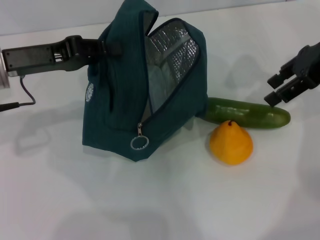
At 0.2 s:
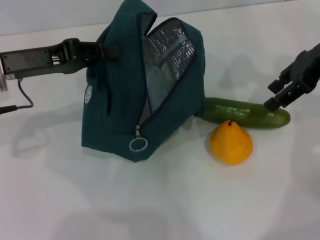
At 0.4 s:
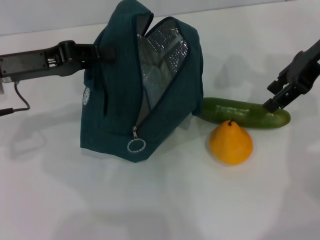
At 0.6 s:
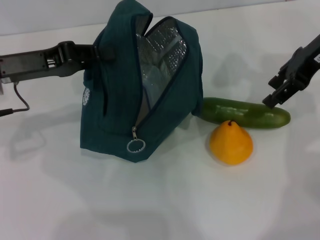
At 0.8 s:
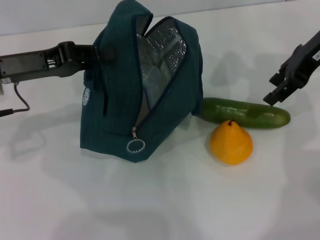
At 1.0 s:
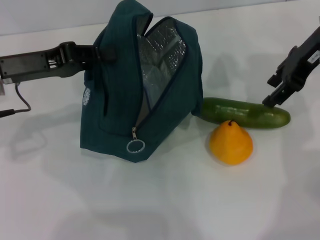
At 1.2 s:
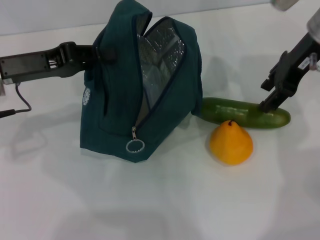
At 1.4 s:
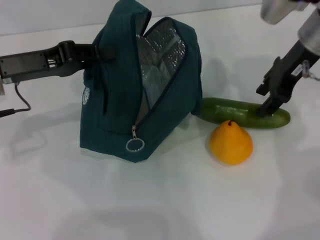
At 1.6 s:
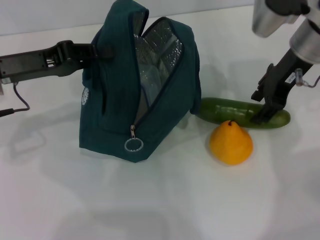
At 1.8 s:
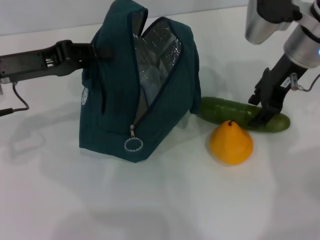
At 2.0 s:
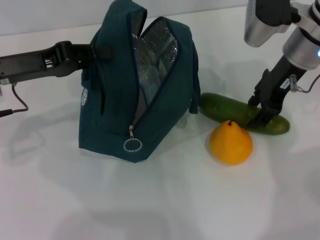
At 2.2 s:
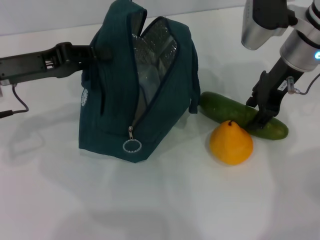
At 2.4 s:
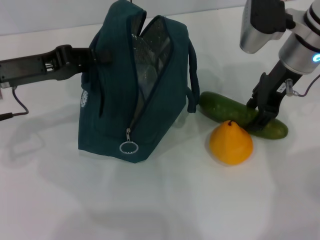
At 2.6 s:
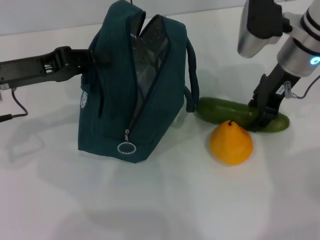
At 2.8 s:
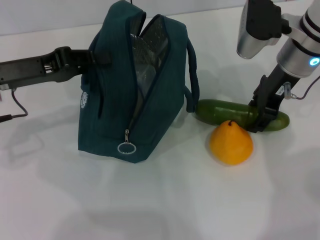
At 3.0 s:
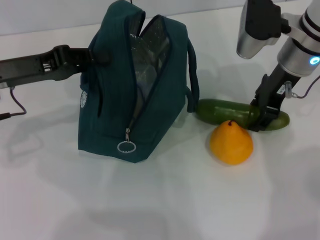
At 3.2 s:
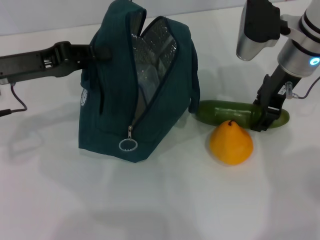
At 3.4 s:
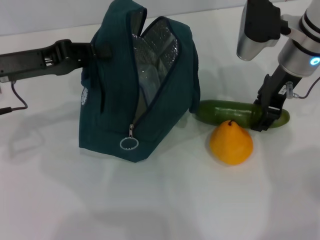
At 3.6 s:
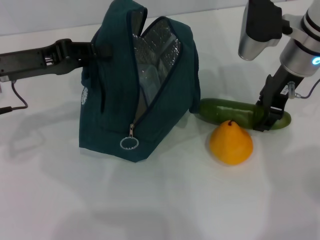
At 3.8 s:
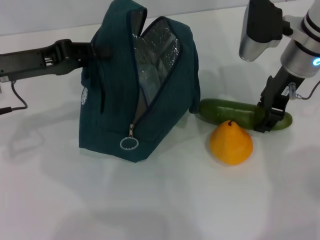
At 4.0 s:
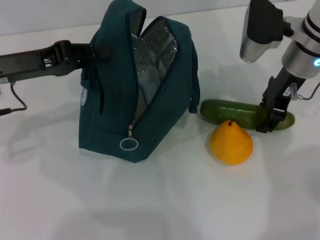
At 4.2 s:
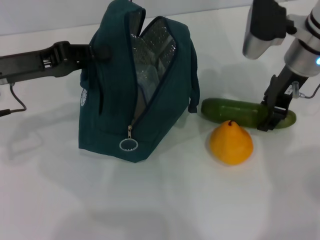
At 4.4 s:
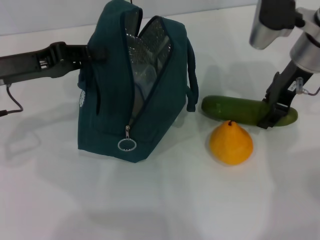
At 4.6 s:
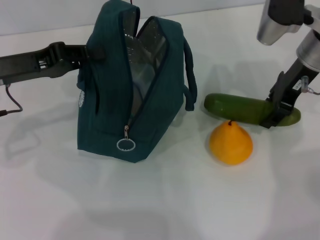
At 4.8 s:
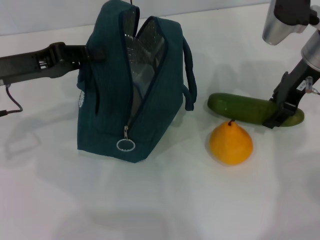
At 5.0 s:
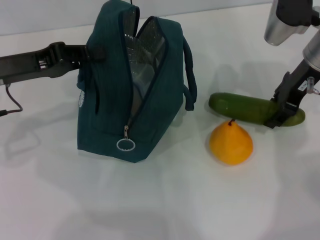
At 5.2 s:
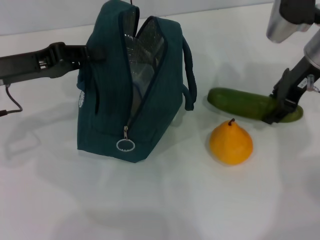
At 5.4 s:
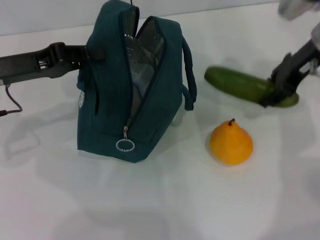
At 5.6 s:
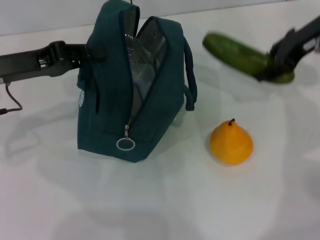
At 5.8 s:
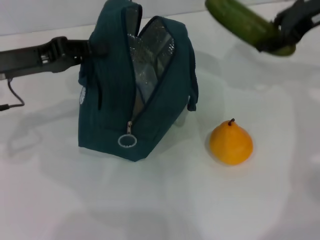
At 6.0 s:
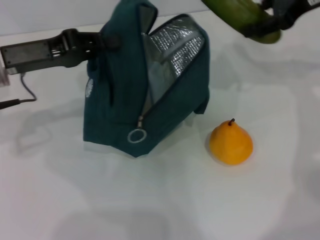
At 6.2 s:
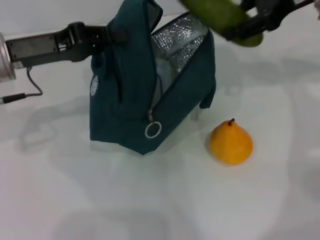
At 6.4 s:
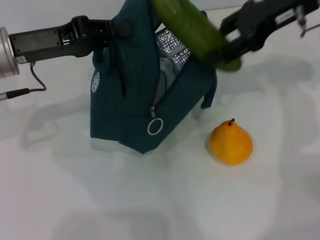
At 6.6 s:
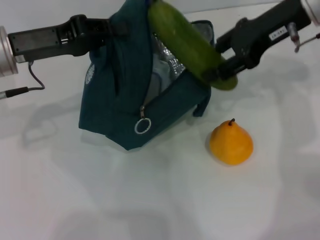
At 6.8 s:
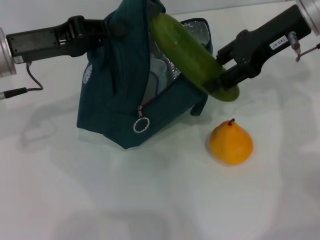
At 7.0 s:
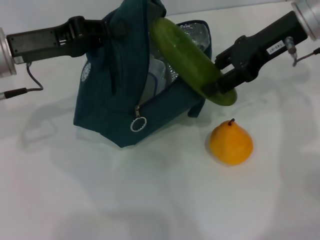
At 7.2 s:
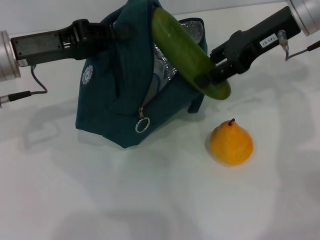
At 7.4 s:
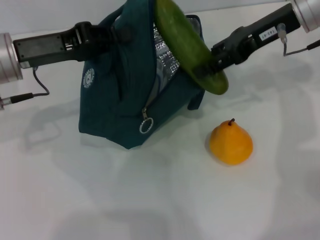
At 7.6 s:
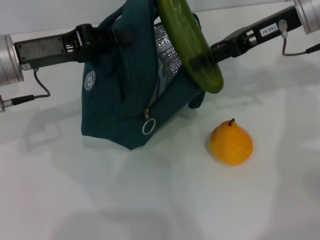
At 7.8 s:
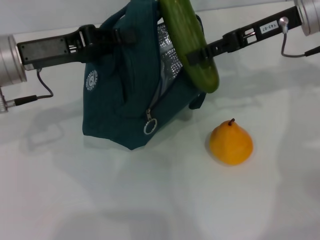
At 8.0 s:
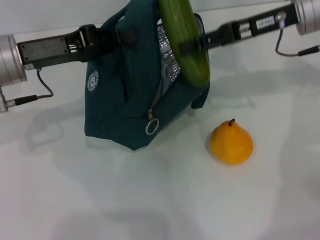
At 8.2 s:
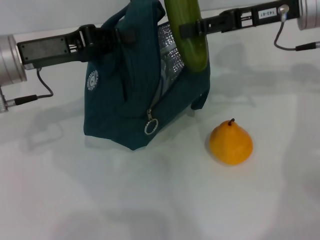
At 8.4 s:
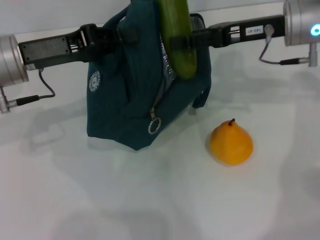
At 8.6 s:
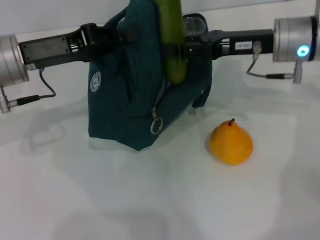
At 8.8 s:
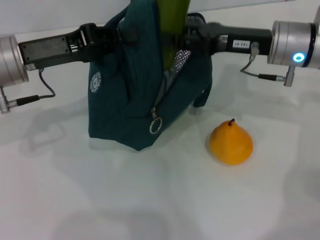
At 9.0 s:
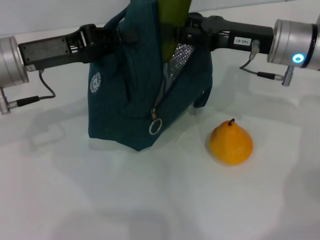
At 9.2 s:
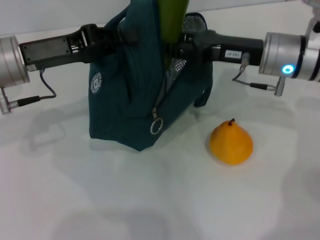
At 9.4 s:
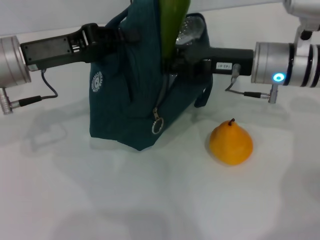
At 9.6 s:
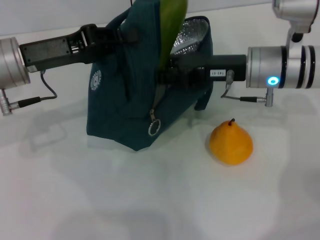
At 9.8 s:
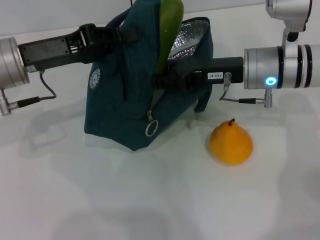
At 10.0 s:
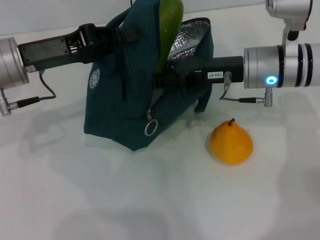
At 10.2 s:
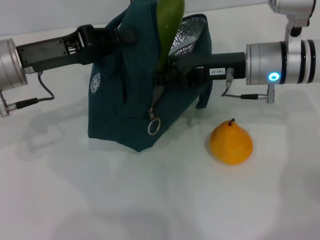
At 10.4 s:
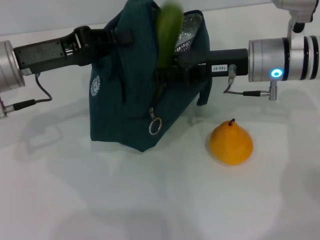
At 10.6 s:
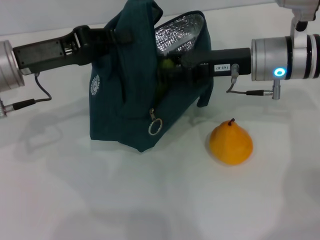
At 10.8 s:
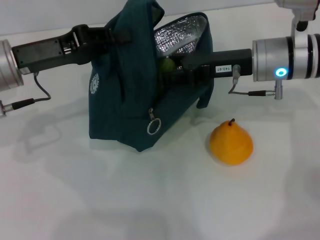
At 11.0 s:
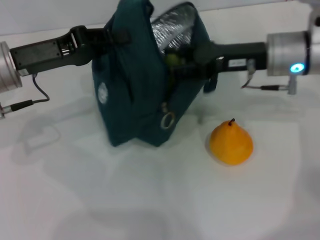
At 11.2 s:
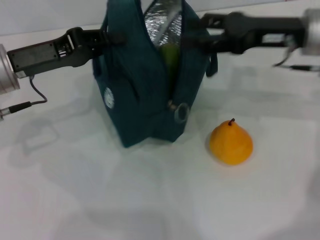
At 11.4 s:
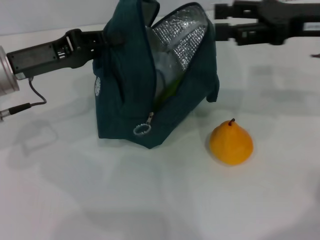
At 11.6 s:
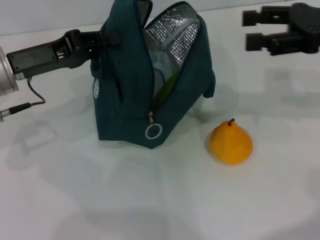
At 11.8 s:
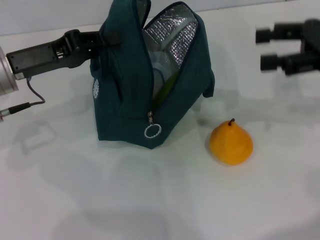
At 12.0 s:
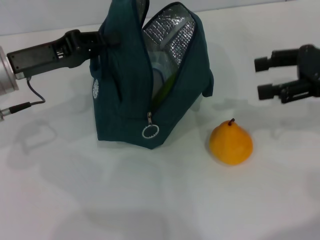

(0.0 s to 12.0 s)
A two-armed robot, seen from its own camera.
Step, 0.0 s - 4.0 s: Pick up the cucumber with your right hand.
Step, 4.2 s - 11.0 s: Put the cucumber into the lunch bag with your right hand.
0.0 s - 1.6 s: The right gripper shifts about 5 cm to the left.
1.6 s - 4.4 s: There are only small adjustments of the grippers.
4.4 s - 6.0 s: The right gripper travels upward and to the right by about 10 cm.
6.0 s - 7.6 s: The right gripper travels downward by approximately 5 cm.
7.6 s - 9.0 s: The right gripper travels downward by roughly 5 cm.
9.0 s - 10.4 s: The grippers make only small movements.
10.4 s - 12.0 s: The right gripper is displaced to the right by roughly 15 cm.

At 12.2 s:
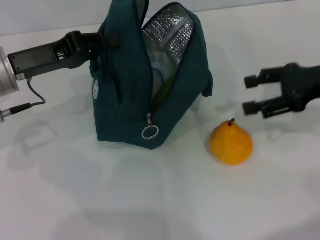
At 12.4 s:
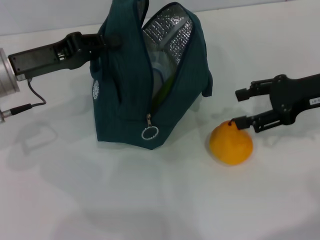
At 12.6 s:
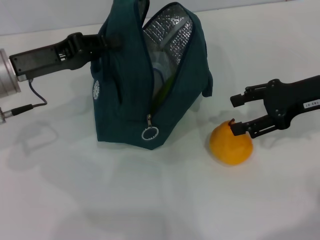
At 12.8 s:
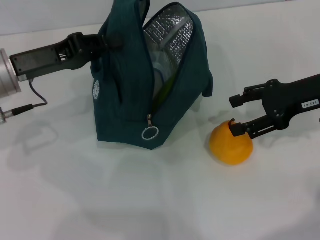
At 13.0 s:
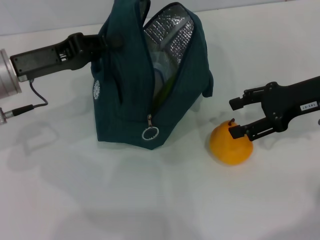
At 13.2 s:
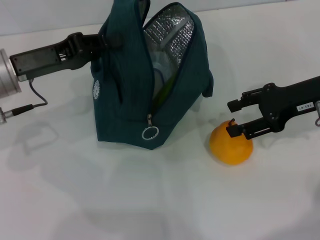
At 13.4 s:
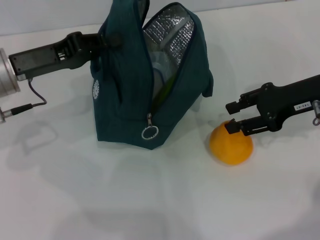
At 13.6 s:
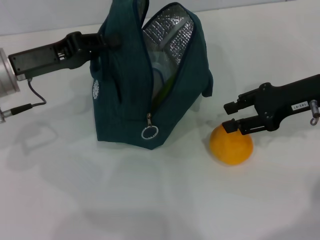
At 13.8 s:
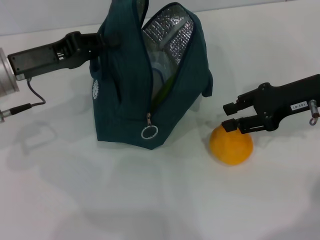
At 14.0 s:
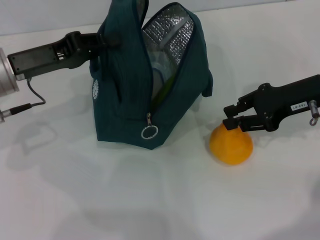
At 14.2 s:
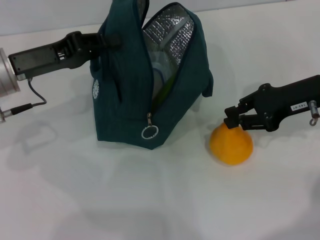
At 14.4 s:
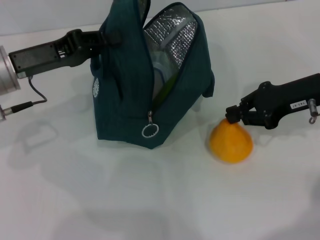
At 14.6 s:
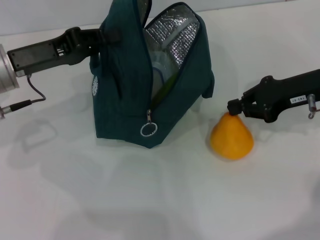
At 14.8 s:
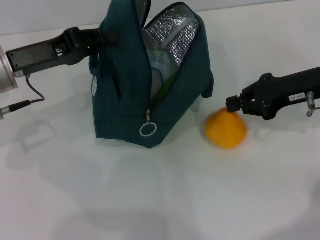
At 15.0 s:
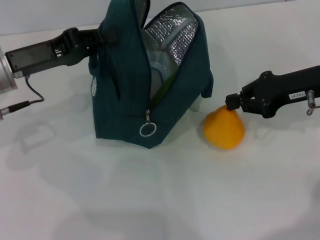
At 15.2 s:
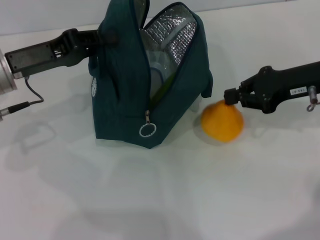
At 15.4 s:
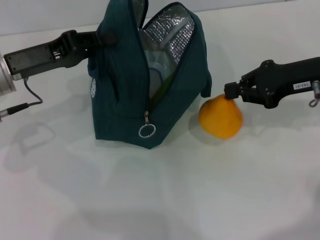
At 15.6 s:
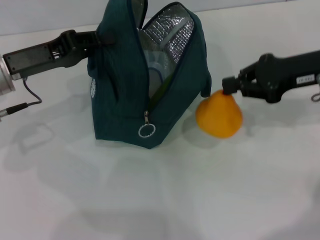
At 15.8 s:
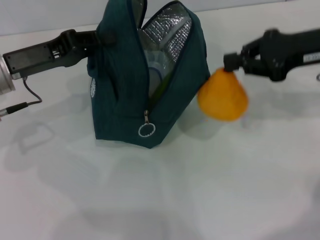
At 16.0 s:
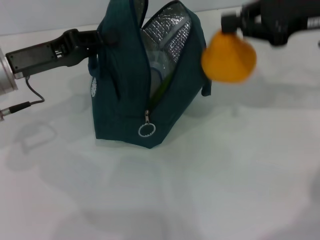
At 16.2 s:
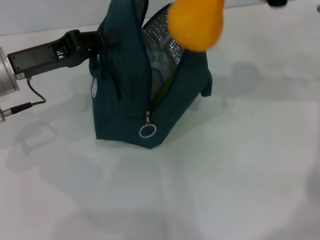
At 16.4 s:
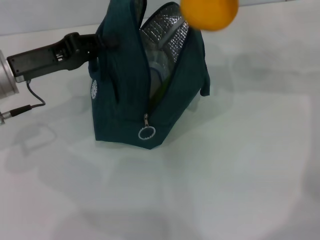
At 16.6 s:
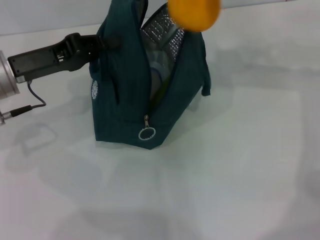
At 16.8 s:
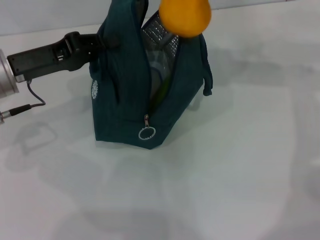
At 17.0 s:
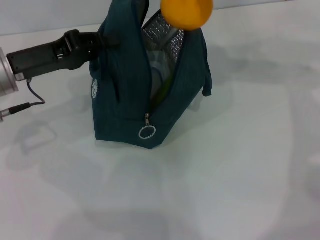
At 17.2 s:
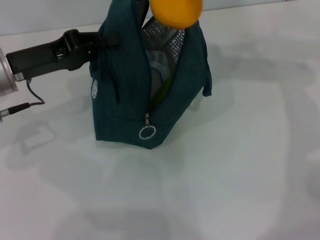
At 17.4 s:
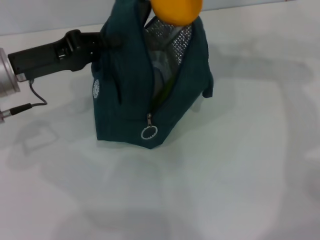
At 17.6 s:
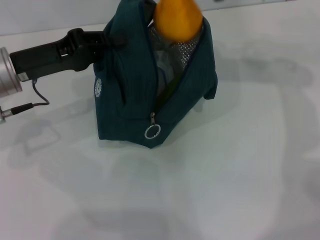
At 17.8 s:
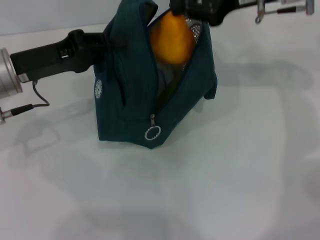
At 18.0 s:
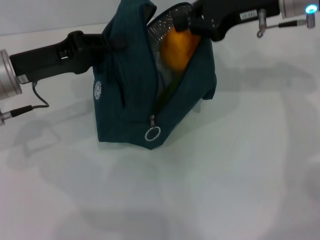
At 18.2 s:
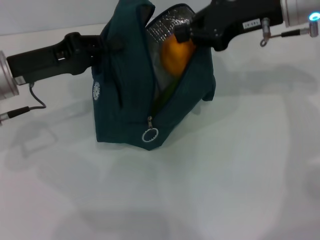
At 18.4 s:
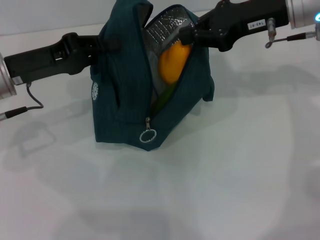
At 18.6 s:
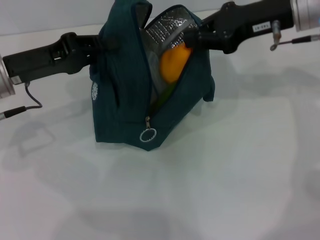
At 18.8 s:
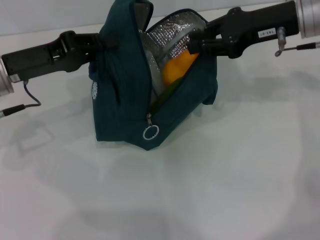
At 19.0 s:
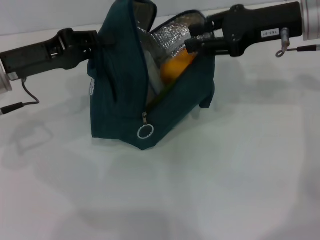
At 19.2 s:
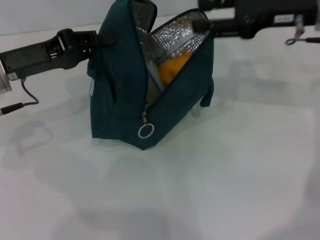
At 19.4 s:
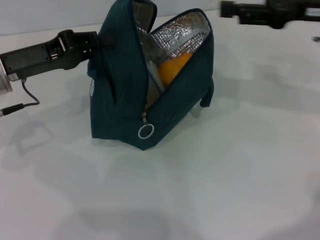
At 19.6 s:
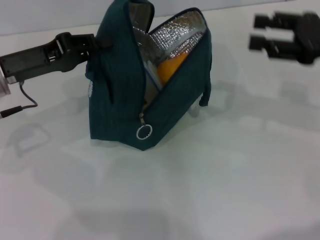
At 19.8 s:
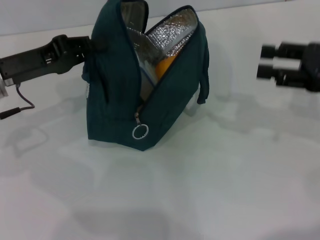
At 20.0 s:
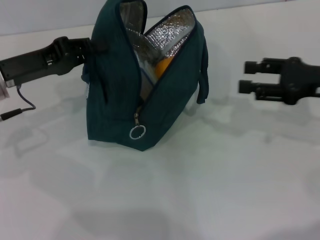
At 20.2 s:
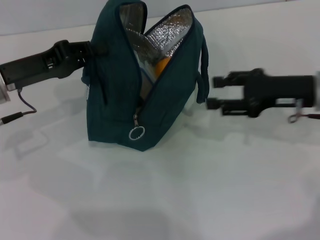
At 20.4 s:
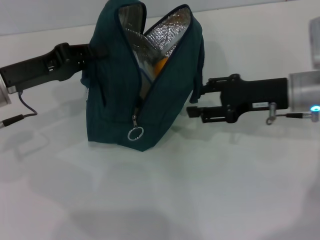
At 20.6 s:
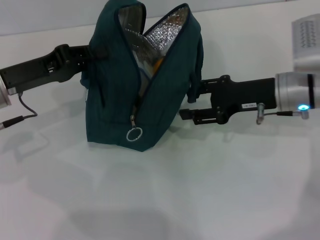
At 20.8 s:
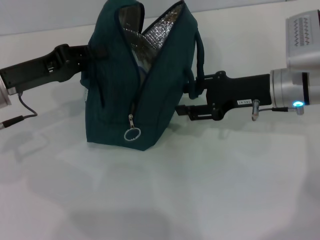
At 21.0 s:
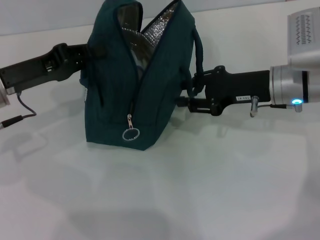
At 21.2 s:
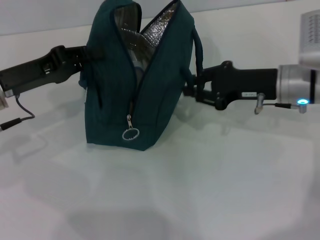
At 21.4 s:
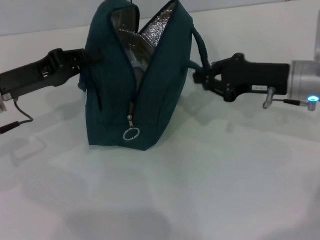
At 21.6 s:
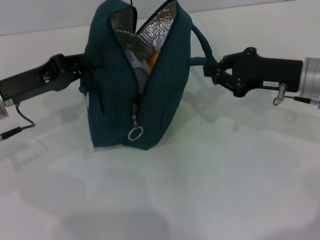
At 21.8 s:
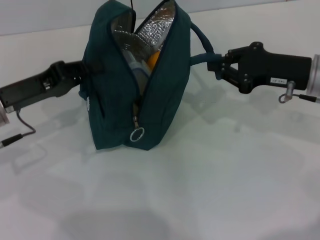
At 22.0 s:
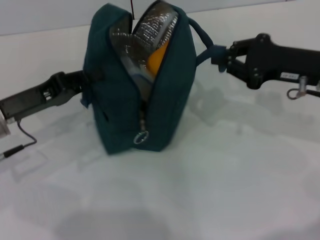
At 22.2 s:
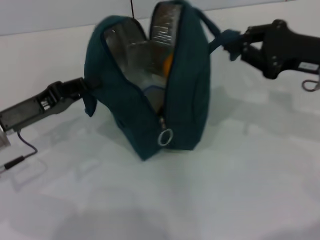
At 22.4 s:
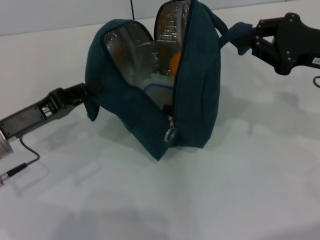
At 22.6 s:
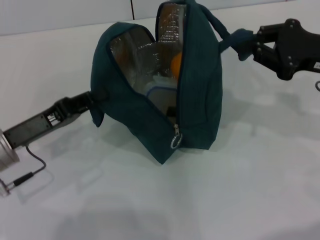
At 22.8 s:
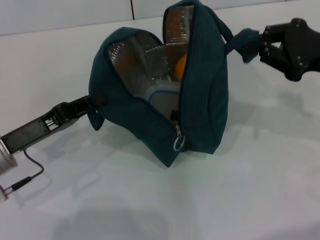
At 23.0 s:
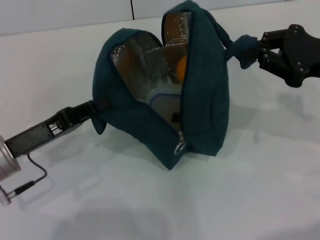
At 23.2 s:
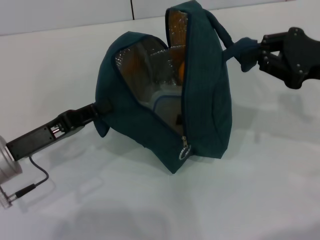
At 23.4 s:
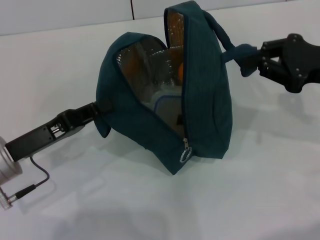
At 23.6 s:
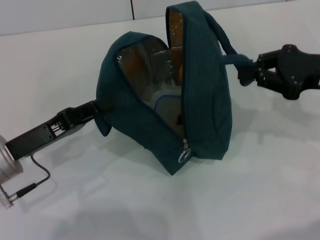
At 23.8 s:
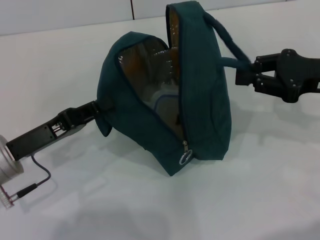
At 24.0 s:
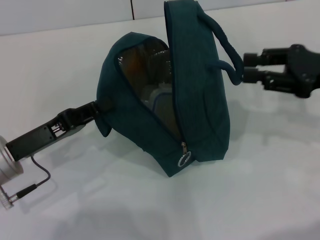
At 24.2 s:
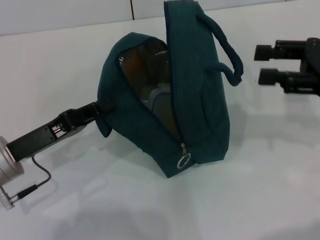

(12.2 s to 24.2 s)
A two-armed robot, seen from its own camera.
Step, 12.2 s - 14.4 s: Grab the pear with your right hand.
Step, 19.2 s - 23.8 s: Hold the lunch bag with your right hand.
12.2 s - 13.8 s: The grippers make only small movements.
13.8 s - 15.2 s: The right gripper closes.
15.2 s - 16.6 s: The right gripper heads upward, covering about 15 cm.
16.6 s - 18.2 s: The right gripper is displaced downward by approximately 5 cm.
18.2 s - 19.8 s: The right gripper moves to the right, backward and downward, some 15 cm, and opens.
19.8 s - 21.2 s: The right gripper shifts some 10 cm to the left and forward.
21.2 s - 22.6 s: The right gripper heads to the right and upward, covering approximately 10 cm, and closes. Meanwhile the left gripper moves backward and downward, approximately 10 cm.
22.6 s - 24.2 s: The right gripper opens its fingers.
